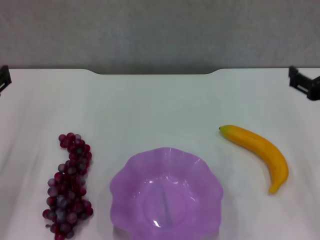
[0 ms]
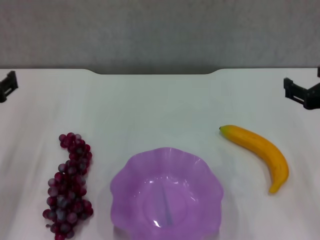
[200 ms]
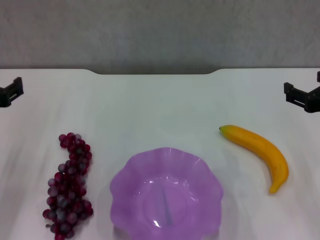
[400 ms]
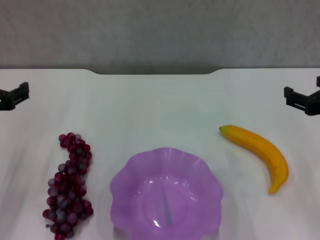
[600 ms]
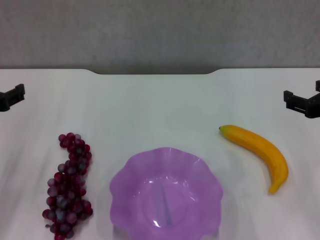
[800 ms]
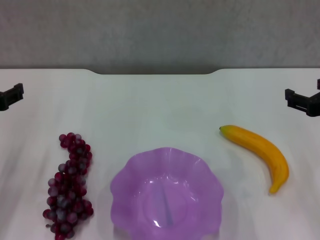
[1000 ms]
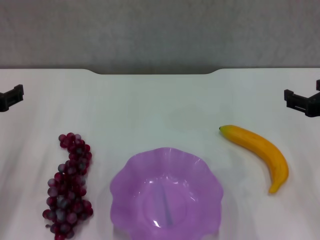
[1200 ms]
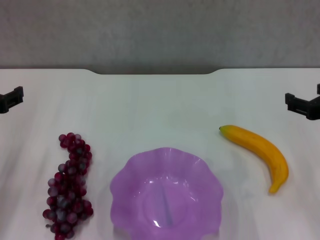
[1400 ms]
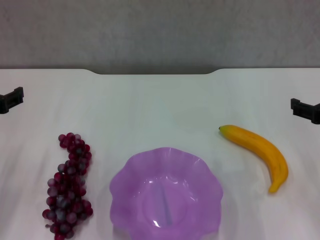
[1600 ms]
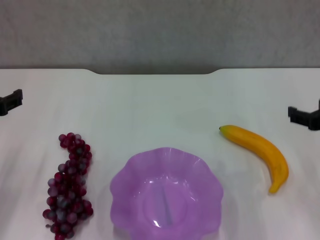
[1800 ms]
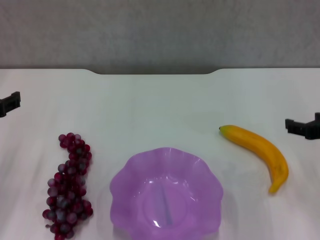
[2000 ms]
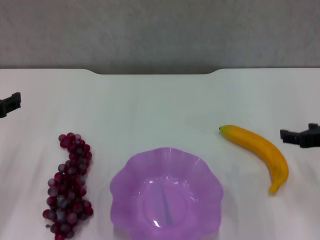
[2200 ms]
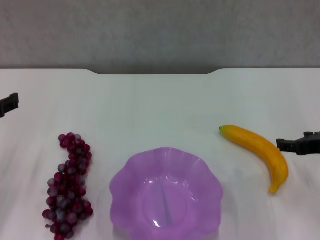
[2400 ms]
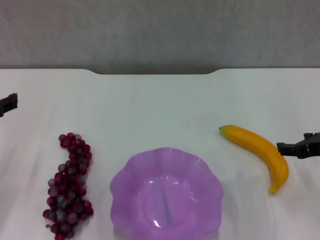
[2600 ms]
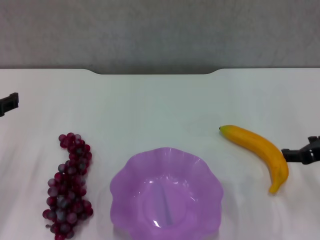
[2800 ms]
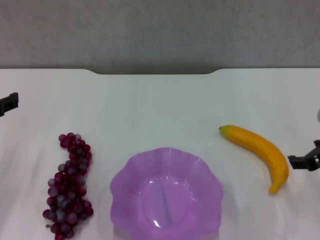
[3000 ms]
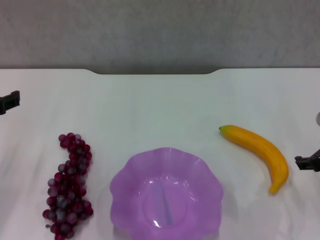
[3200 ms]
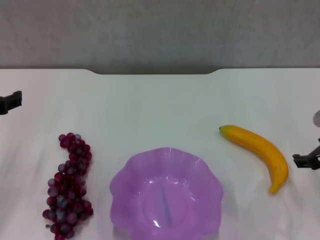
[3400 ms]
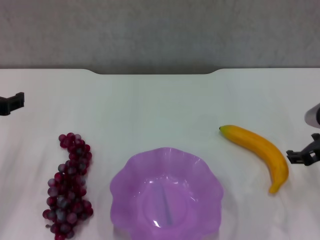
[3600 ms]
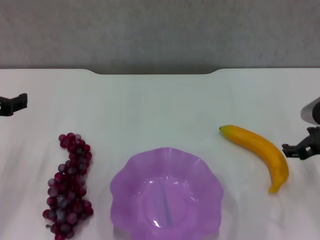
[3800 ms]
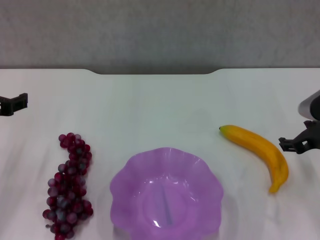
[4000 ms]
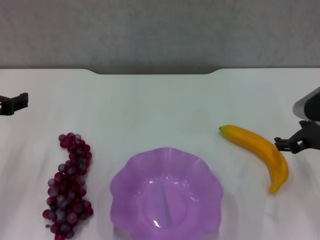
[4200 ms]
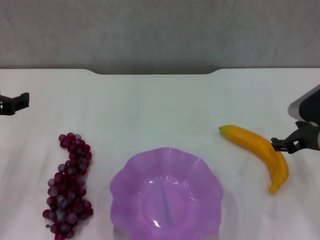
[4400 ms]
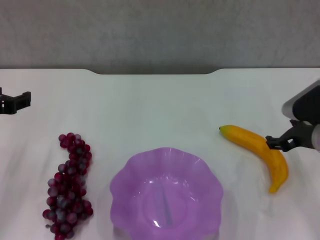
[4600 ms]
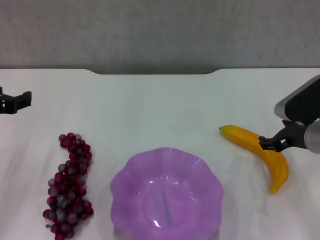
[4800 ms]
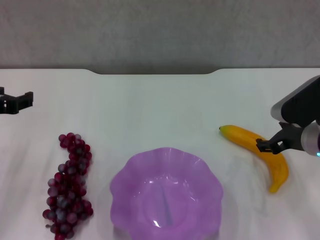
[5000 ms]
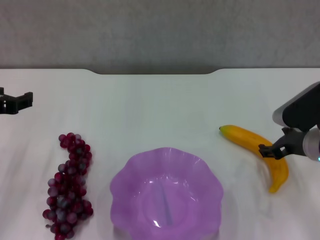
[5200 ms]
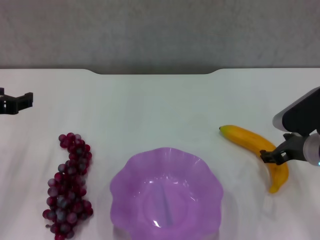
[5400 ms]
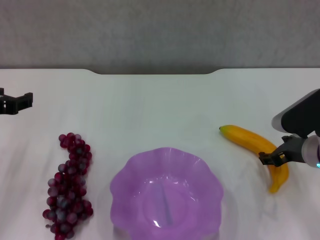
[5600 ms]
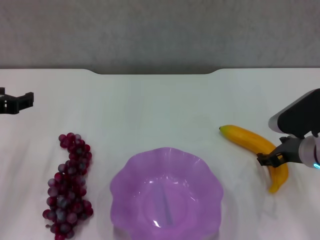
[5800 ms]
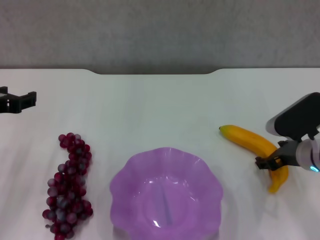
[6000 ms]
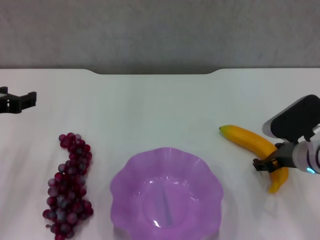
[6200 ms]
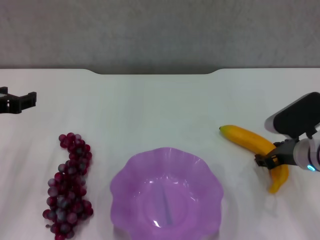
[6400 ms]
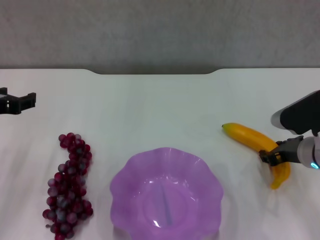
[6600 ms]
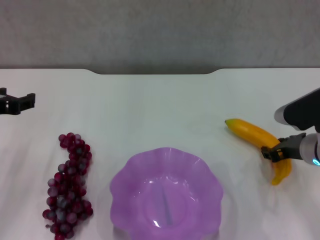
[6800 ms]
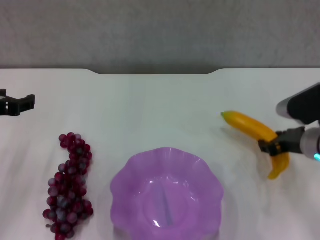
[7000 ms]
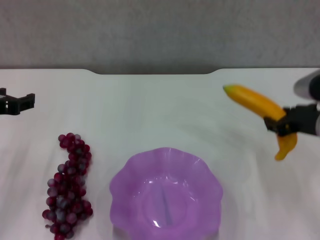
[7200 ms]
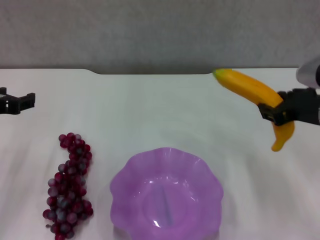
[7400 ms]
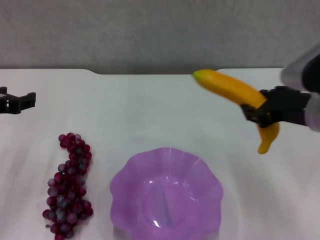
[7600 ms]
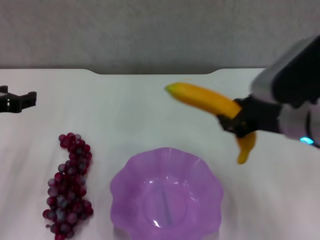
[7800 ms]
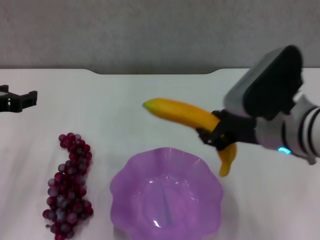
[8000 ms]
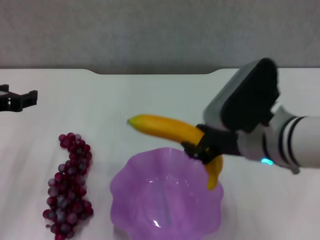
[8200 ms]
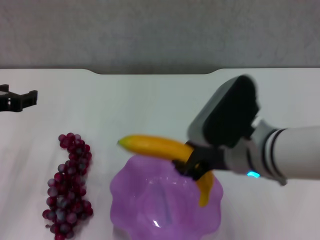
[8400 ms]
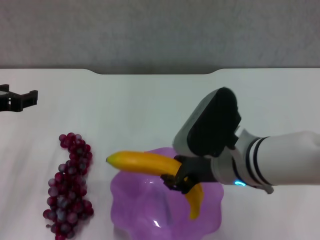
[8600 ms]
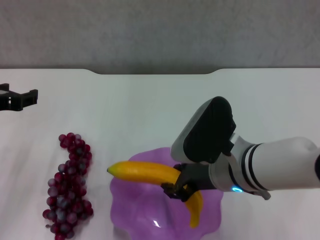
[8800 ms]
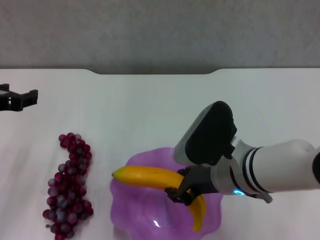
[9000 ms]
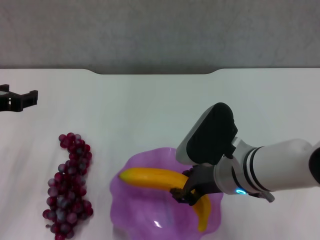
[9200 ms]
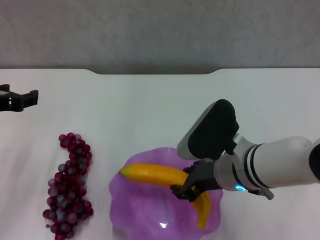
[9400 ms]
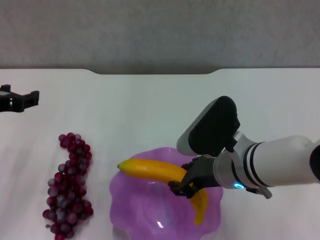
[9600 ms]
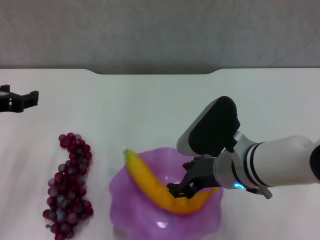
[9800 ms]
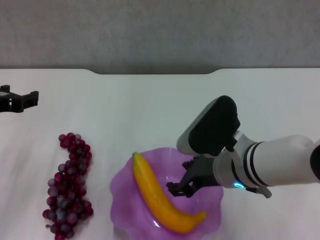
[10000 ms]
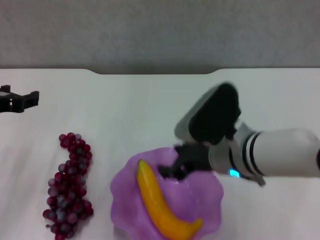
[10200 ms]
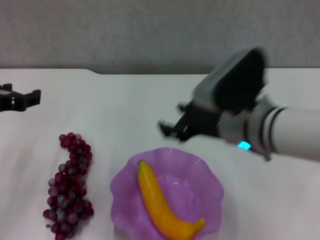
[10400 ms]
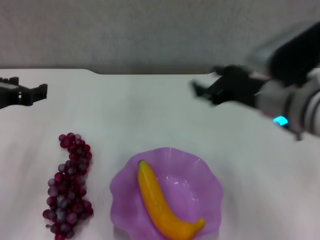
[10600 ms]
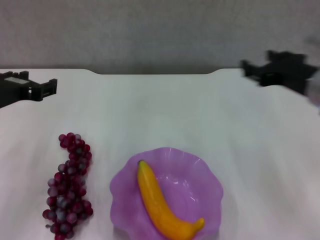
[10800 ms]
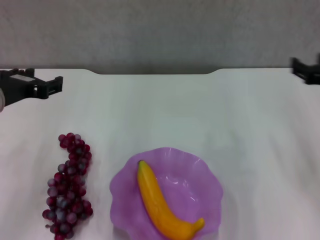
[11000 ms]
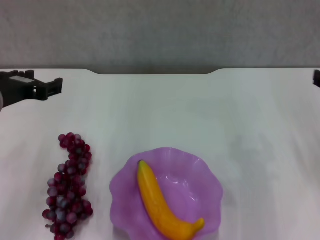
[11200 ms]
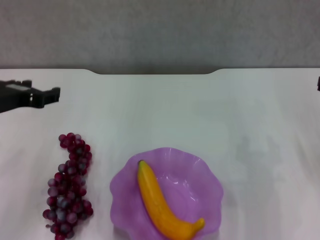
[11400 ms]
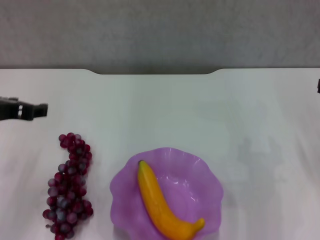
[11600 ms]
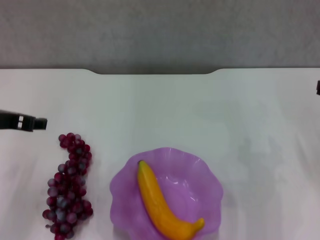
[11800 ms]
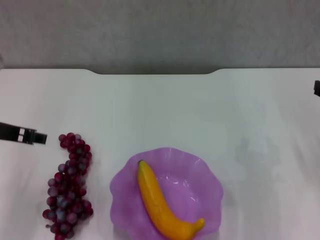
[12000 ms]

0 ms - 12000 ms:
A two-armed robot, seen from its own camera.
Step, 0 ms - 6400 ms: Grasp the banana with right gripper.
Step, 6800 ms - 9800 ms: Place the banana in the purple plate with right gripper.
0 ms - 1600 ms: The grippers move only a little.
3000 ms - 4400 ms: The grippers stay close to where they were, moving slightly.
4400 ms - 6000 ms: The grippers move only a little.
6000 ms - 7600 ms: The right gripper goes approximately 15 cm upward, and closes.
7600 ms - 9000 ms: The right gripper is displaced to the left and downward by about 15 cm.
9000 ms - 10400 ms: The right gripper shifts by some 5 cm.
10400 ms - 12000 ms: The right gripper is displaced to the right by approximately 20 cm.

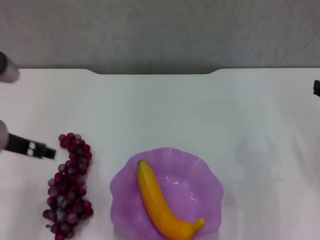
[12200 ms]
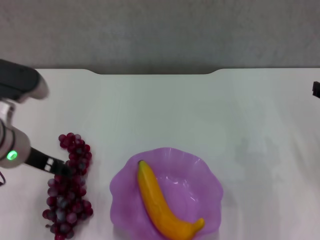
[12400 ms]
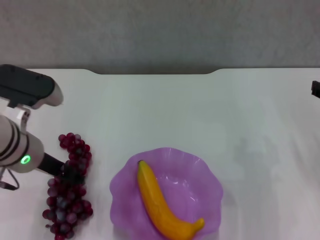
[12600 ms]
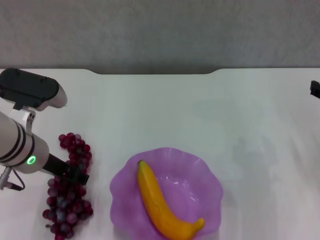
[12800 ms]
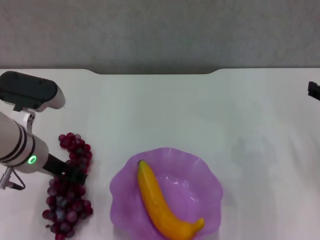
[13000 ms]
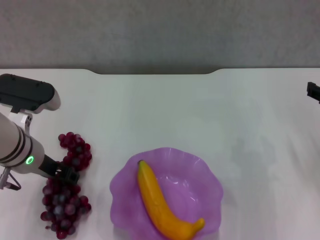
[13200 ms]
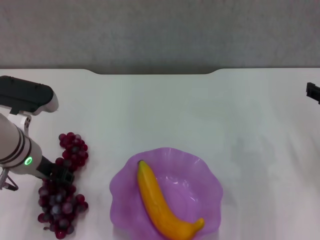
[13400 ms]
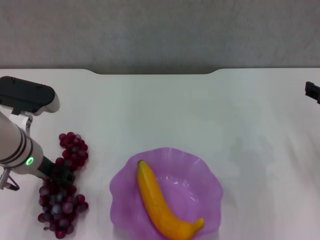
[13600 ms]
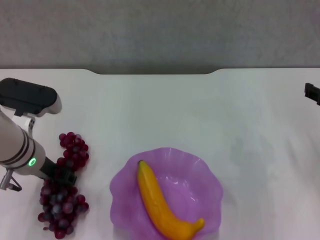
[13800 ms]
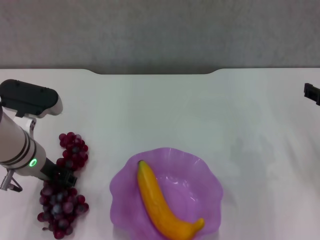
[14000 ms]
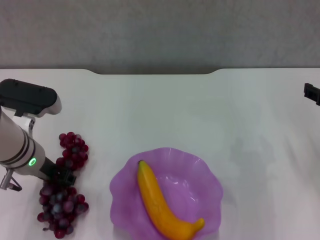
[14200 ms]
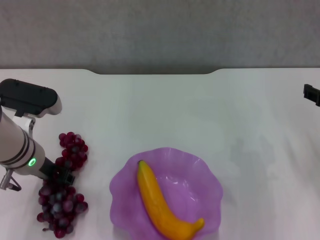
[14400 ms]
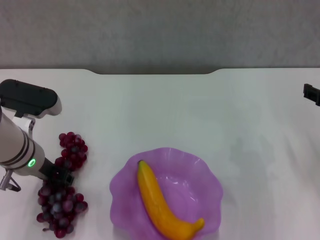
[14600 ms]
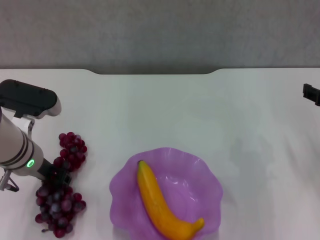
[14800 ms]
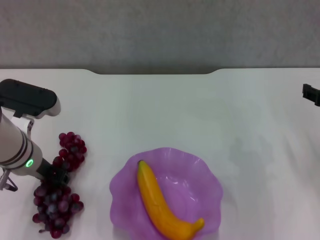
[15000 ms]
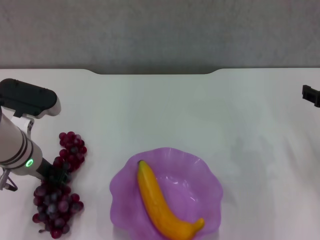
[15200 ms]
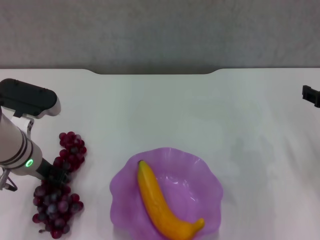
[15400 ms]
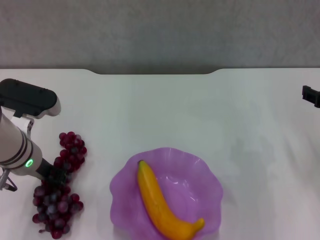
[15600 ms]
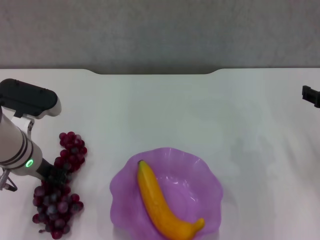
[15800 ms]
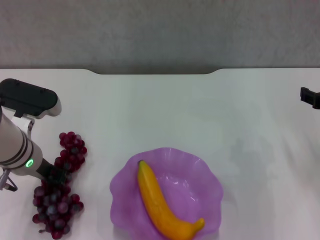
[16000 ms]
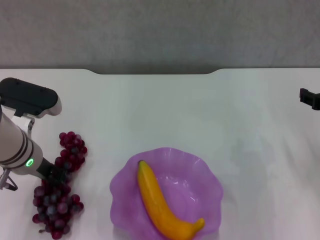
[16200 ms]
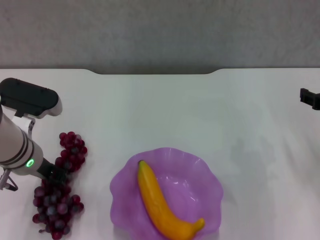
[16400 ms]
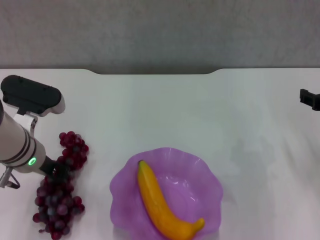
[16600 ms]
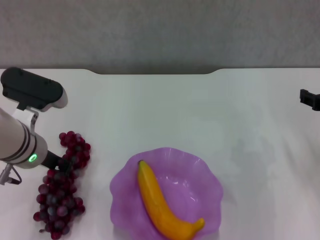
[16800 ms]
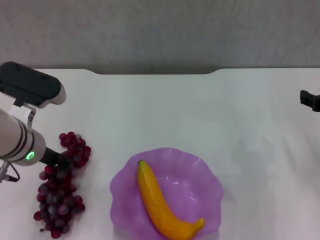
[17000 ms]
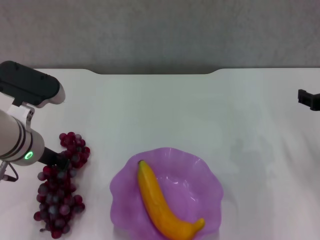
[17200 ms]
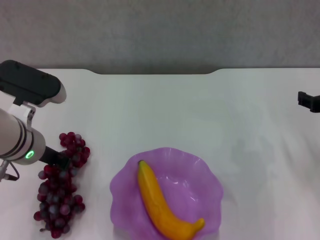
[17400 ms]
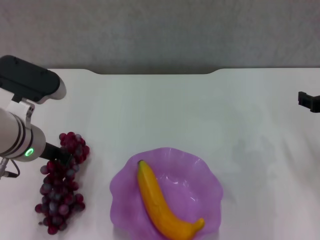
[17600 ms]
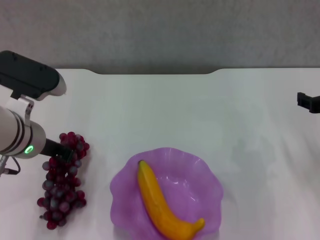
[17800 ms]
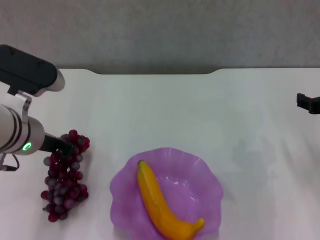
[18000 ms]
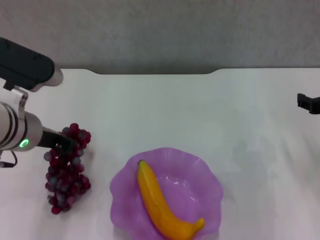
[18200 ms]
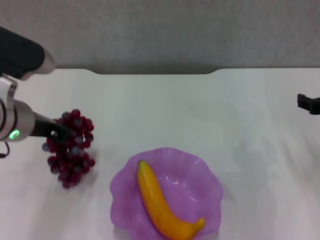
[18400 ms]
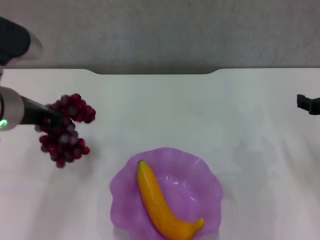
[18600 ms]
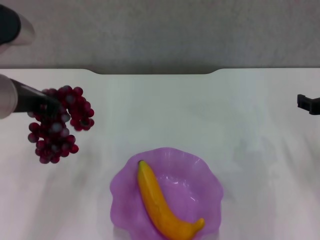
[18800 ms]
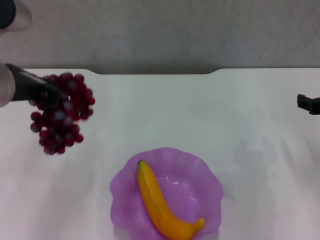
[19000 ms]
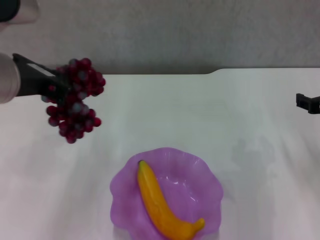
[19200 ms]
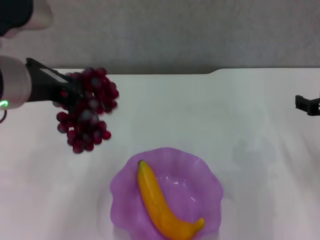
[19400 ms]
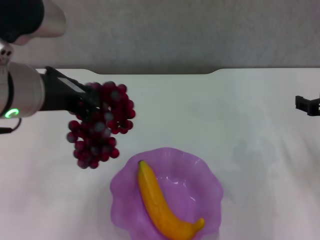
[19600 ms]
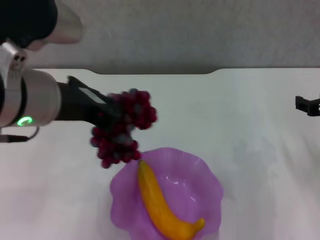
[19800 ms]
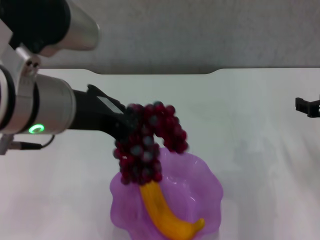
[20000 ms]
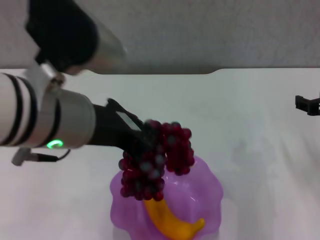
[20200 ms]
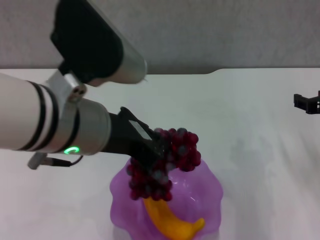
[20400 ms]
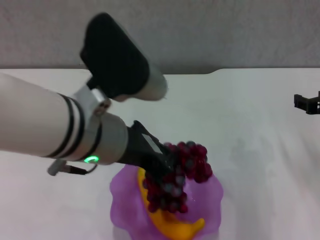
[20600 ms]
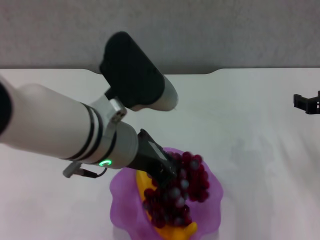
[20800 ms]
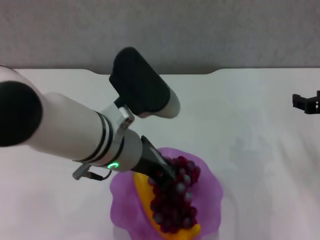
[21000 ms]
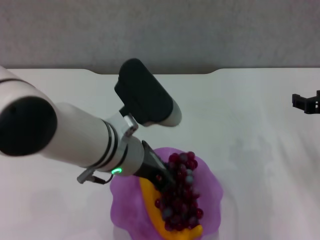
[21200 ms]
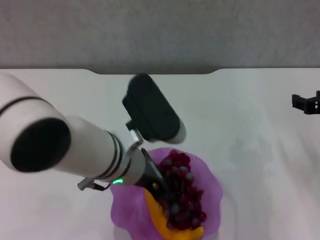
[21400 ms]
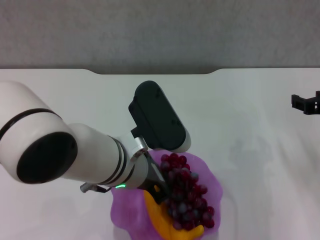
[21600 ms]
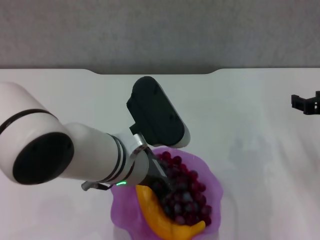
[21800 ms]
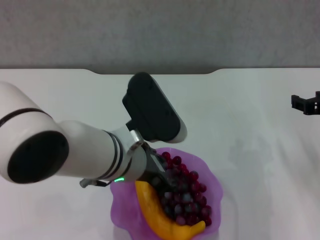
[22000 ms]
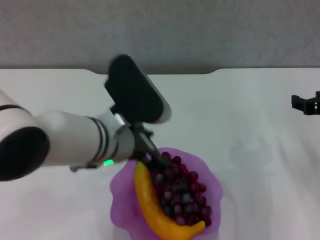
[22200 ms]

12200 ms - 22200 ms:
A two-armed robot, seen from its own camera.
Step, 12200 ms - 16600 ms: Grasp the grape with left gripper.
Step, 16800 ms - 22000 ms: Place the grape in the purple plate with left gripper.
12200 ms - 13600 ms: The left gripper heads downward, covering roughly 5 cm.
13600 ms - 16400 ms: Neither gripper changes place.
16400 ms - 18000 ms: The left gripper goes some 5 cm upward, and closes its fingers.
18000 ms - 19400 ms: The left gripper is displaced upward by some 10 cm.
19400 ms - 20800 ms: The left gripper heads to the right and downward, covering some 10 cm.
20800 ms - 22200 ms: The left gripper shifts some 5 cm downward, and opens up.
